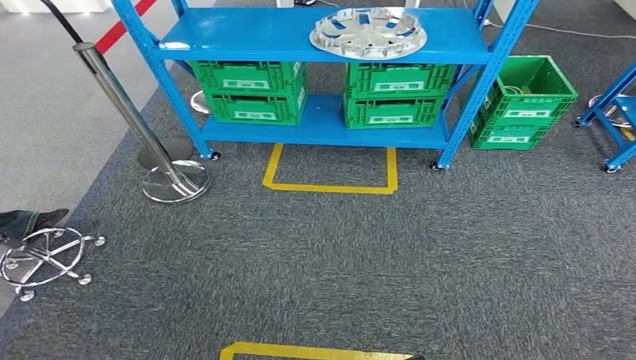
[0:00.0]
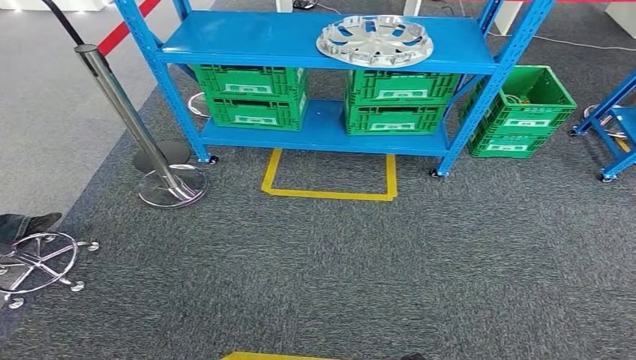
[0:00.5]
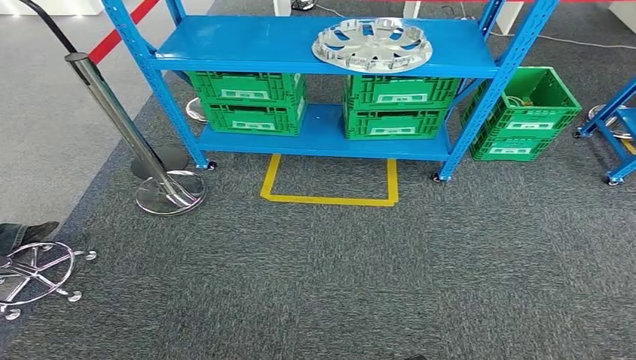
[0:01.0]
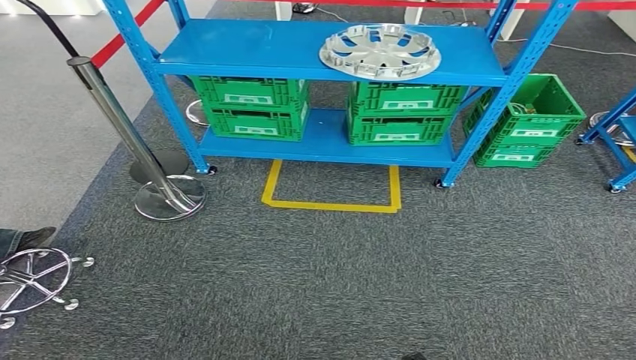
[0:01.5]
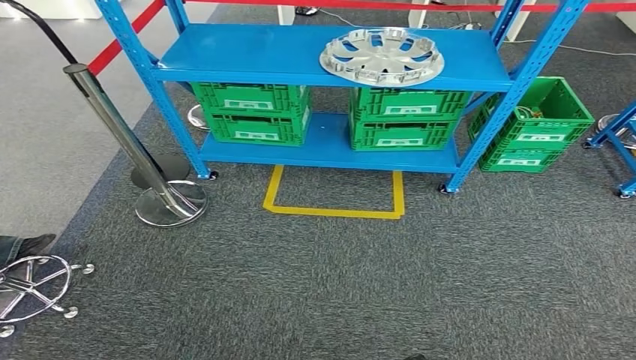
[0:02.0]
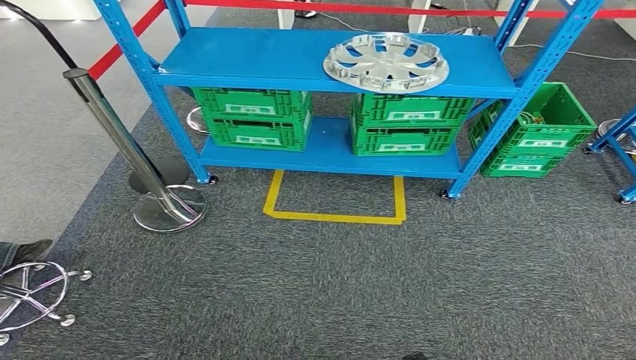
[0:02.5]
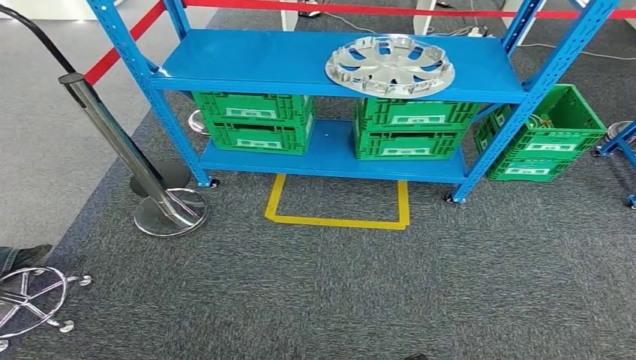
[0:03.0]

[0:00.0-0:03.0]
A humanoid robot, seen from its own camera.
Step, 0:00.0 to 0:03.0: Return to the initial position at the workbench.
